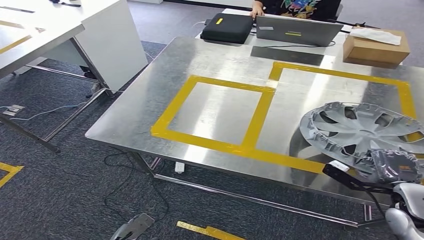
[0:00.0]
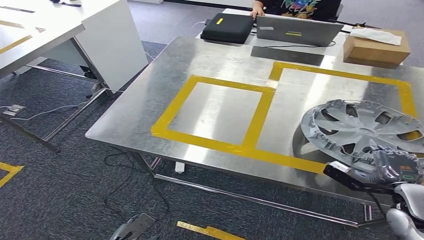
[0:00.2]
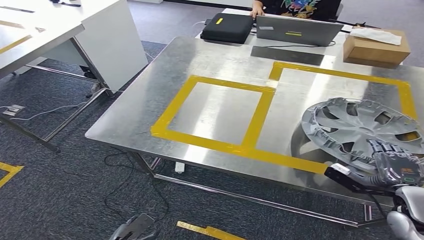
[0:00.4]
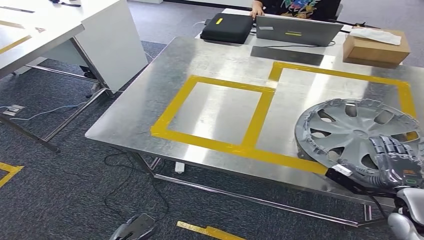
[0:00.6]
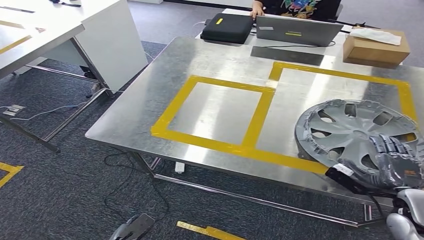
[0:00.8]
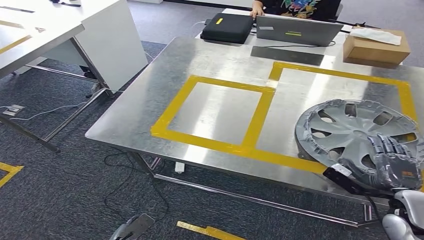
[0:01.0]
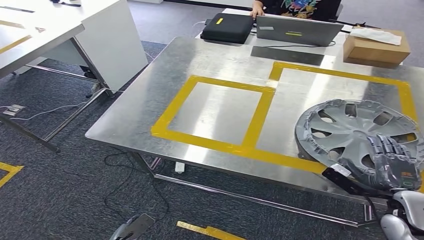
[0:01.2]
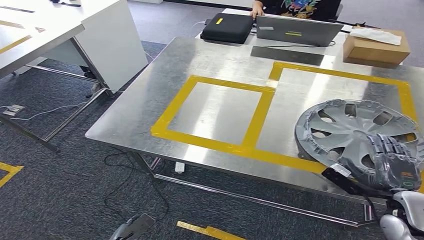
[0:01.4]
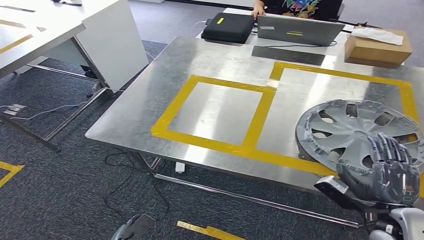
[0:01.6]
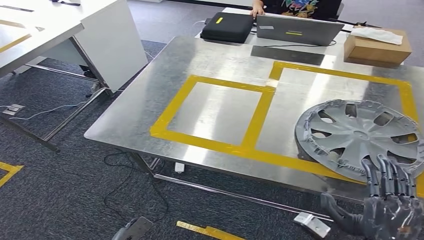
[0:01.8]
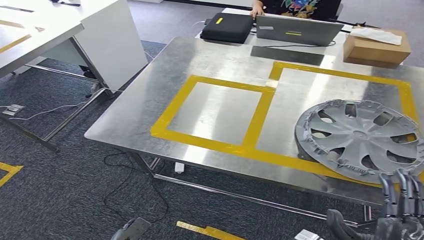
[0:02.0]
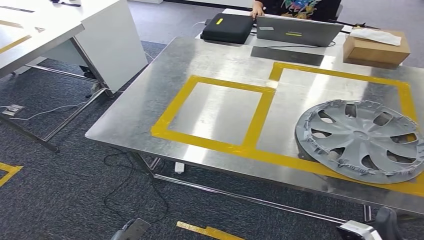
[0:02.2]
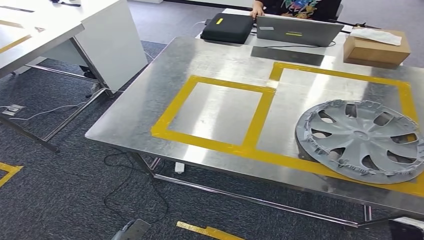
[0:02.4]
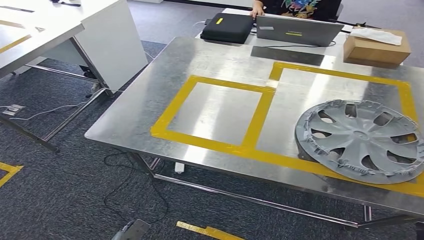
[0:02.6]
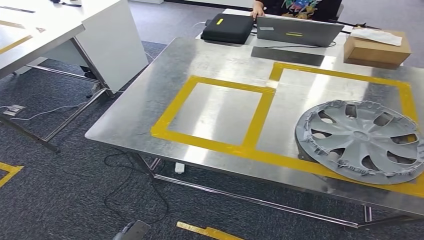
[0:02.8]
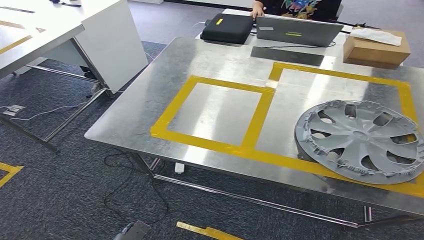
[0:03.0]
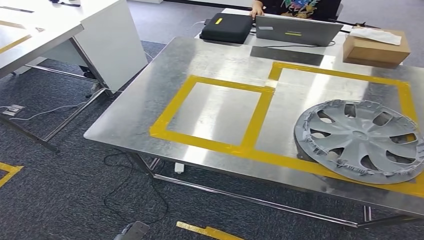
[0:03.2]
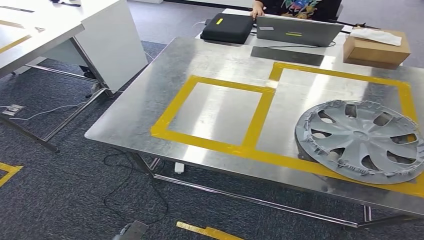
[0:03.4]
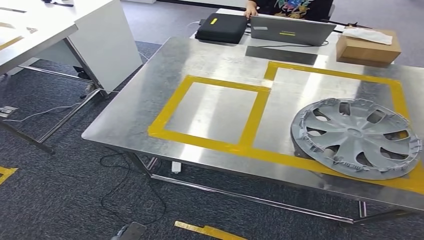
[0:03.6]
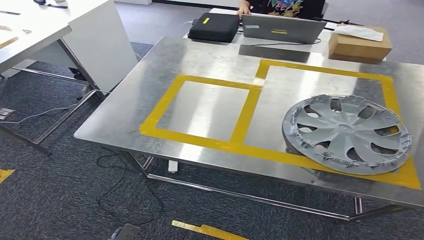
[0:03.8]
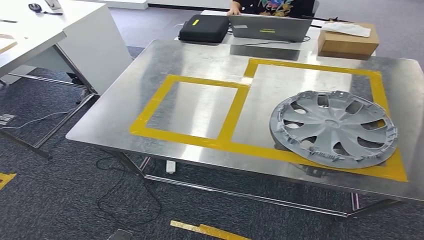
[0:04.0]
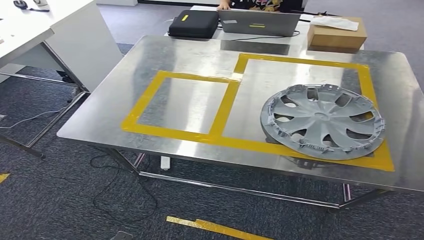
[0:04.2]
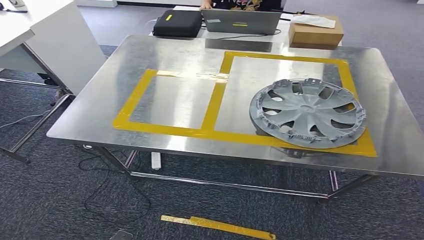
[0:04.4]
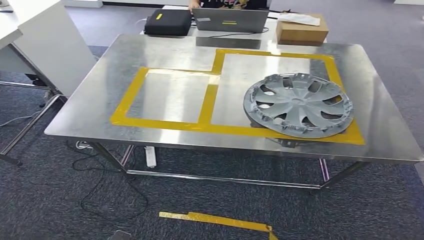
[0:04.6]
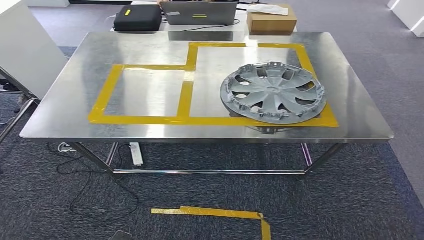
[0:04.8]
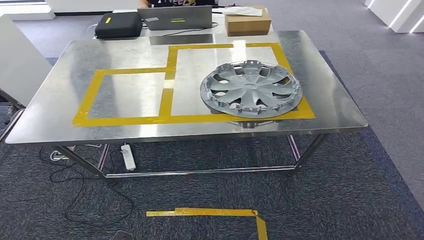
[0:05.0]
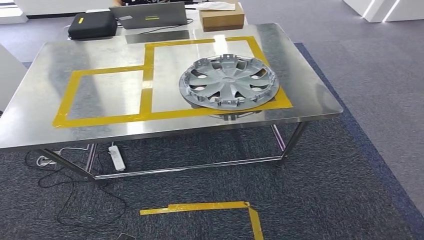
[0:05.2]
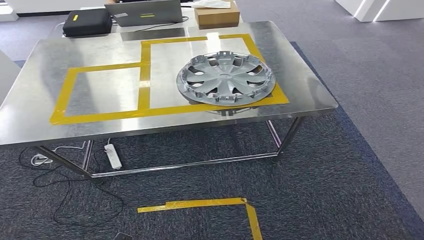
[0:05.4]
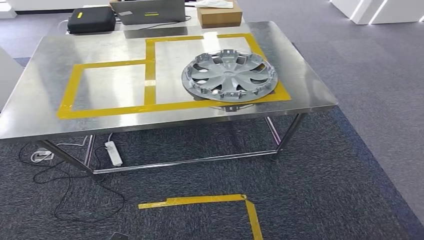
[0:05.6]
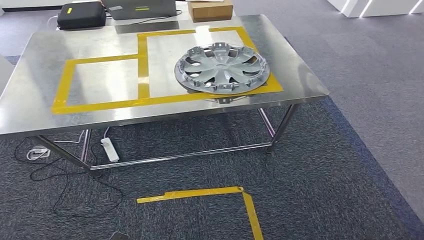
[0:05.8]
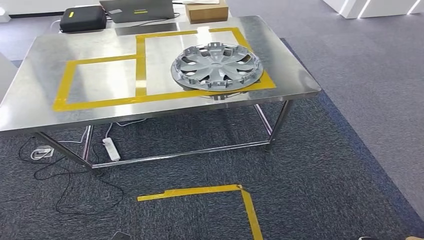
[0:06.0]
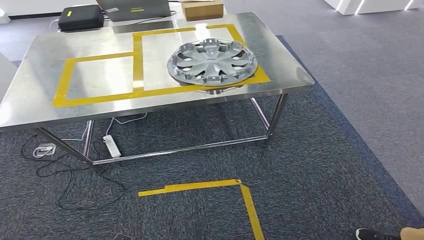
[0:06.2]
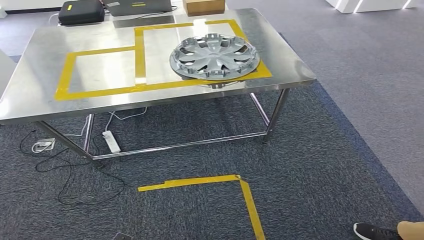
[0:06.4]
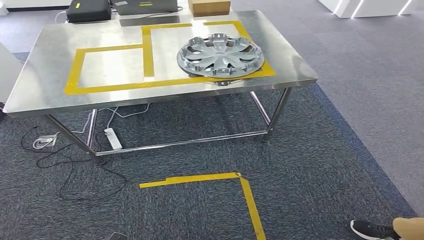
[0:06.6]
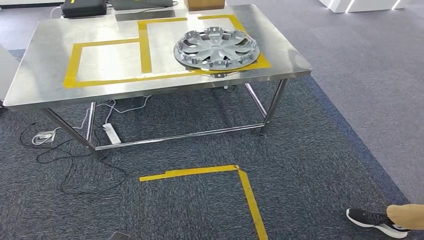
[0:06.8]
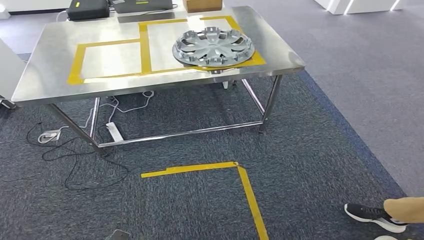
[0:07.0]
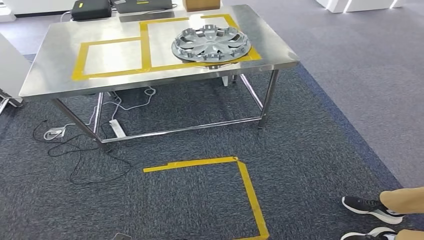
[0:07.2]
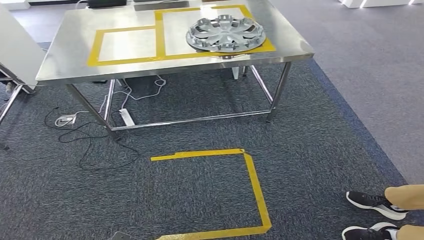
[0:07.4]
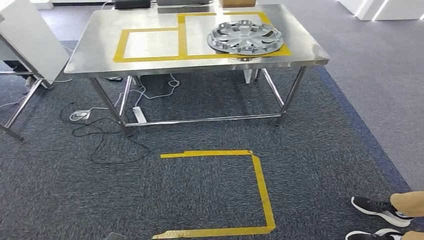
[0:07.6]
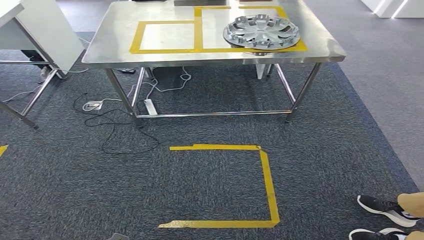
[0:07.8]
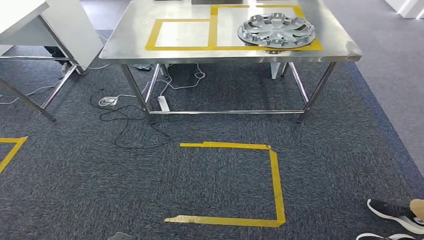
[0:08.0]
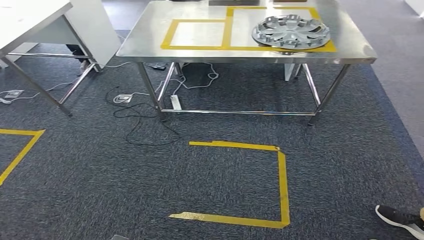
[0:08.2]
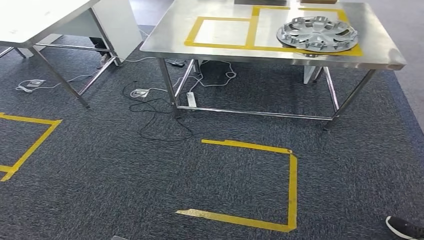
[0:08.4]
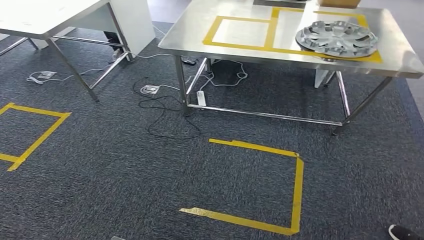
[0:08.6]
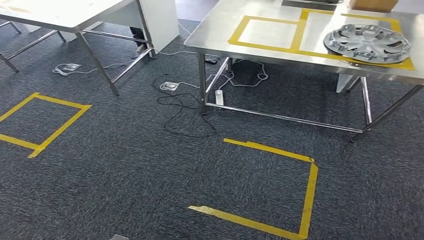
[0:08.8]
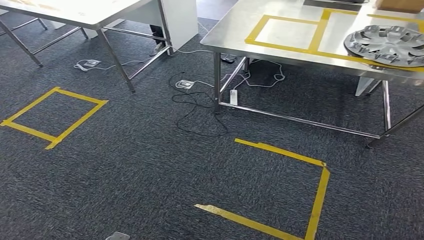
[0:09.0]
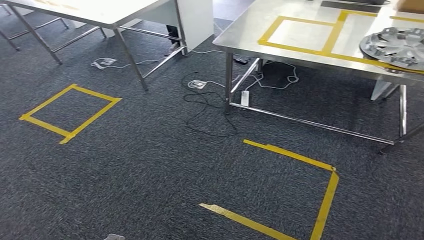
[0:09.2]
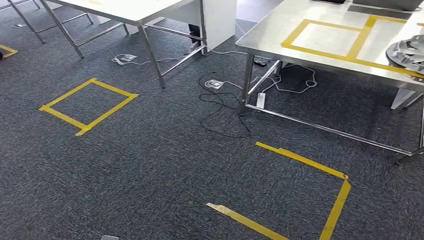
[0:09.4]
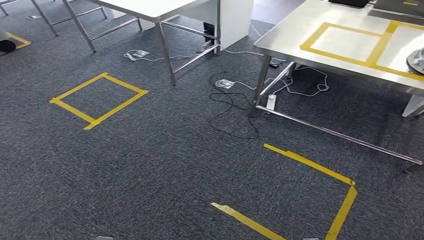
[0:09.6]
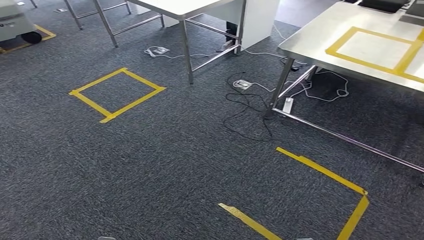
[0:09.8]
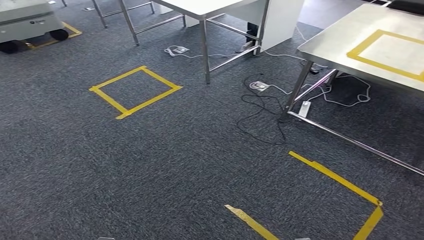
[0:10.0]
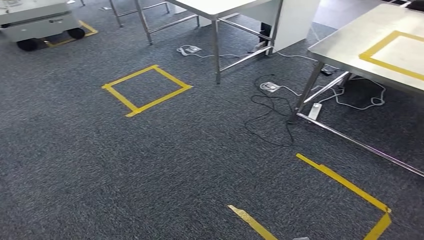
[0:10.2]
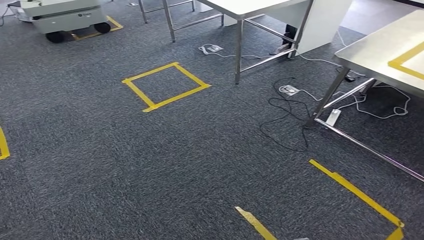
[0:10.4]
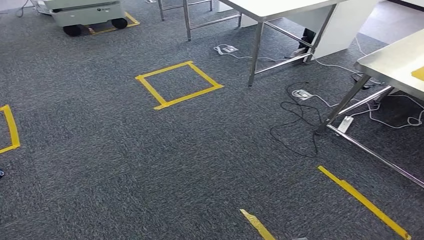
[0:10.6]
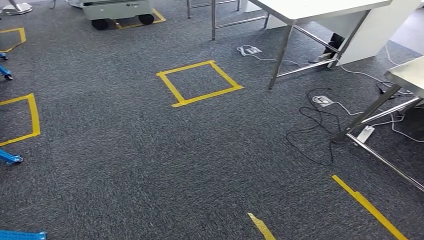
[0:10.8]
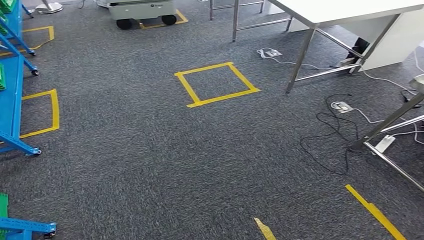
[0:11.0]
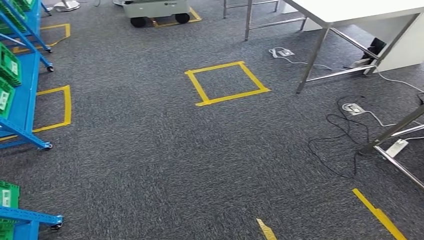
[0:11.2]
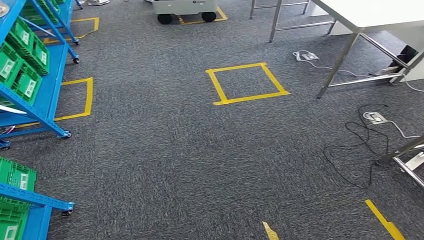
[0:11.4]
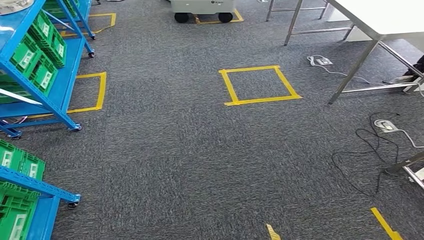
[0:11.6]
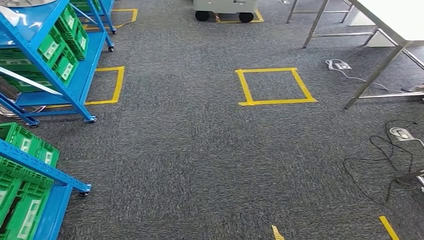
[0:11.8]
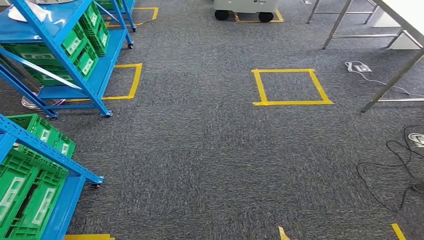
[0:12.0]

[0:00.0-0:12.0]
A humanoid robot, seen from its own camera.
Step, 0:00.0 to 0:04.4: Insert the small component into the corresponding slot on the workbench.
0:00.0 to 0:01.6: The right hand ends up approximately 5 cm from where it was.
0:01.6 to 0:03.0: The right hand moves backward and downward, roughly 25 cm.

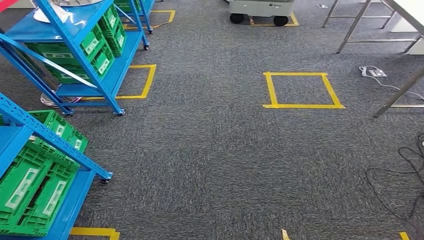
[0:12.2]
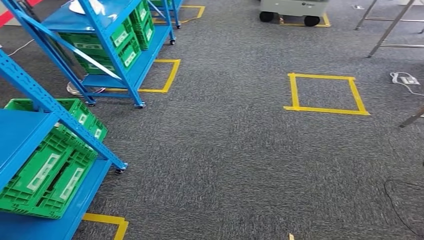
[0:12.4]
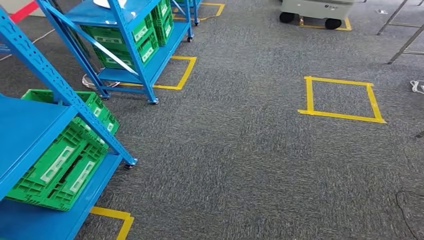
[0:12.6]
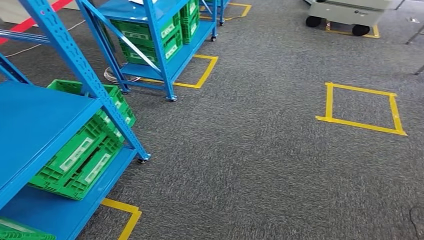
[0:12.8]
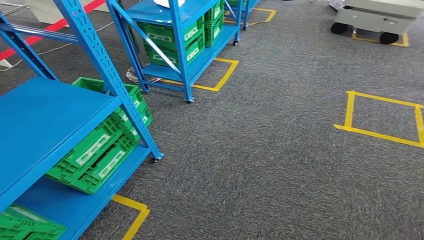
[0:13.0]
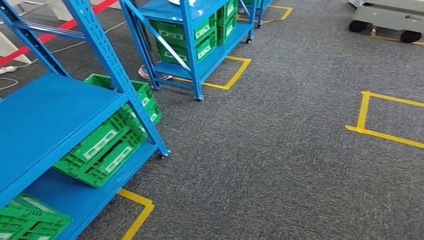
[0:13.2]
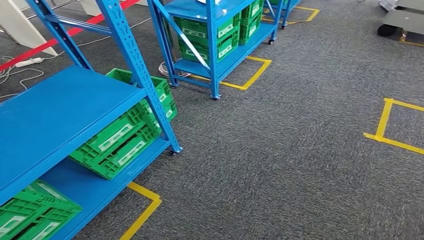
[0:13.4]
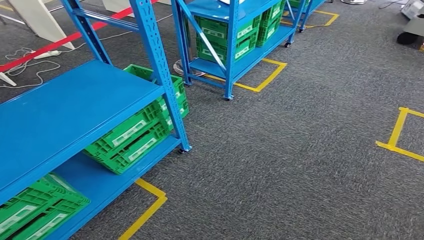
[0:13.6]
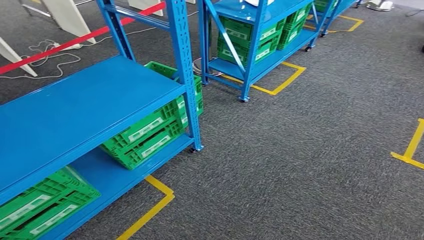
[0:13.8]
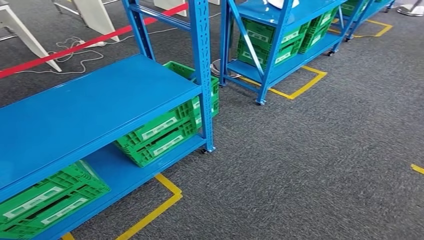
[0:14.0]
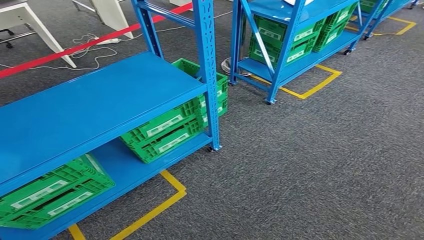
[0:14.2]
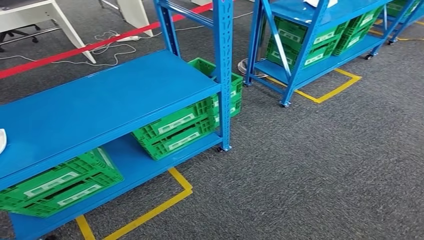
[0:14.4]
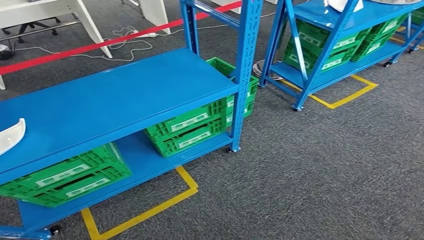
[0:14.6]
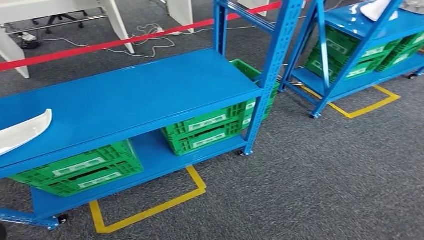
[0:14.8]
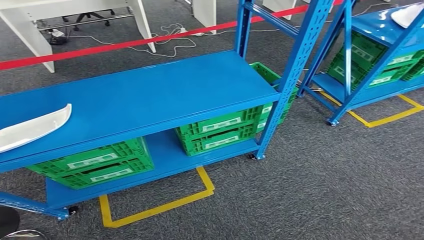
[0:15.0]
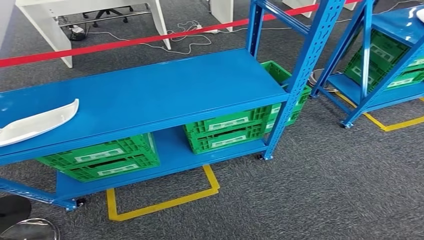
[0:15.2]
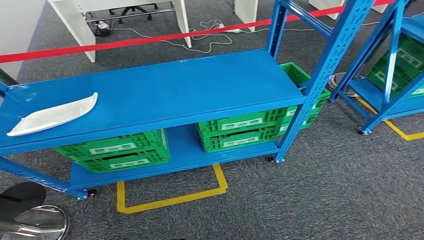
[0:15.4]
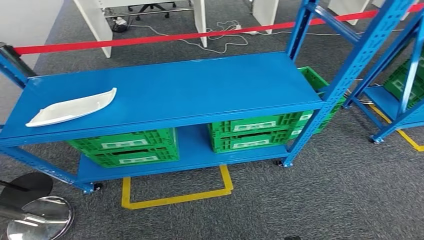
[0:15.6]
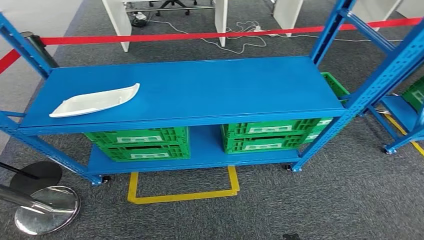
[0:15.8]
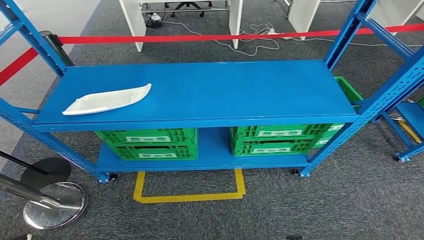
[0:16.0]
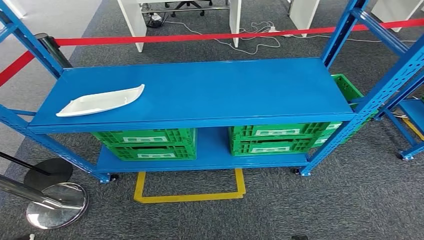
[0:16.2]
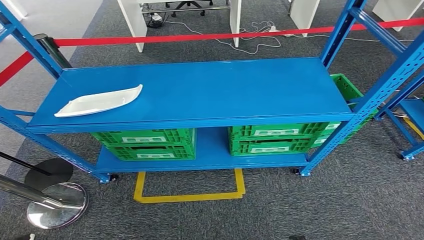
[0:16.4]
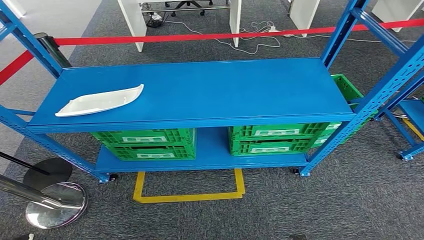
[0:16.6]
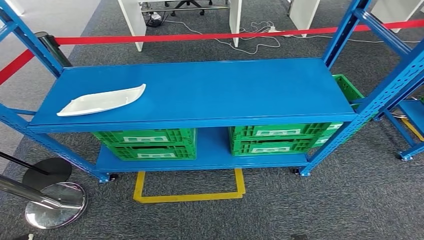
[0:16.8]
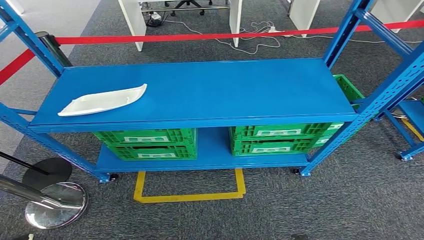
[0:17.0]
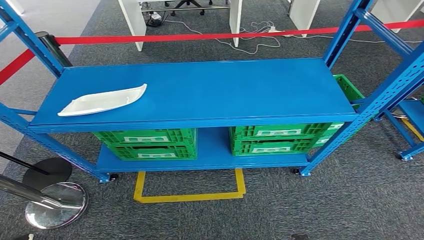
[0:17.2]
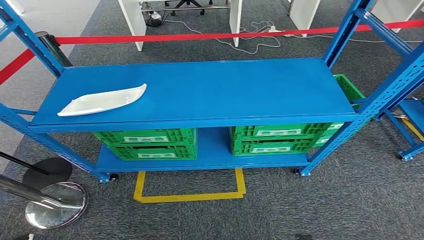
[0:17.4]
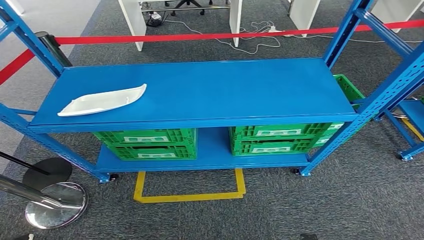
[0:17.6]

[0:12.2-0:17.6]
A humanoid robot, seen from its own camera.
Step, 0:12.2 to 0:17.6: Move to the initial position of the workbench.
0:16.2 to 0:17.6: There are only small adjustments of the hands.
